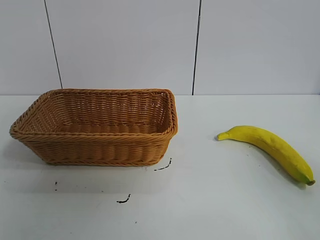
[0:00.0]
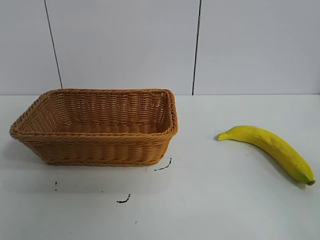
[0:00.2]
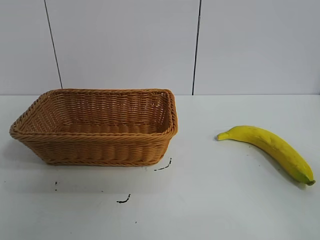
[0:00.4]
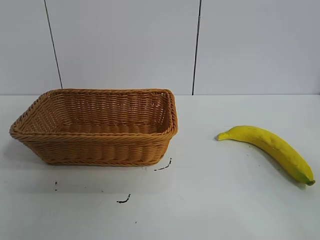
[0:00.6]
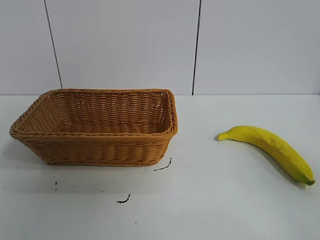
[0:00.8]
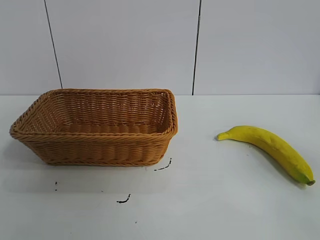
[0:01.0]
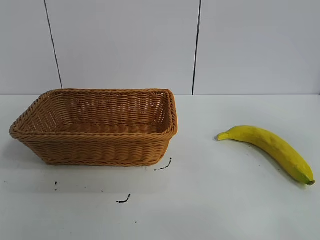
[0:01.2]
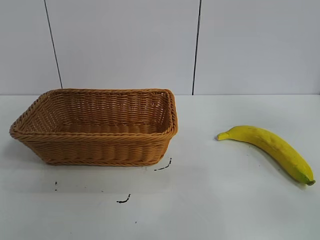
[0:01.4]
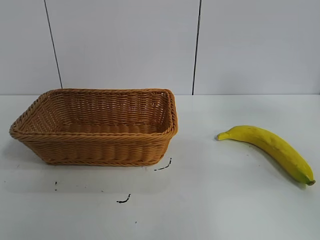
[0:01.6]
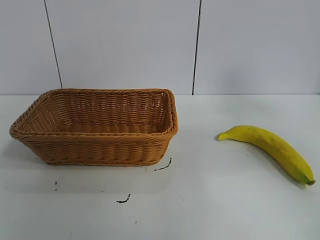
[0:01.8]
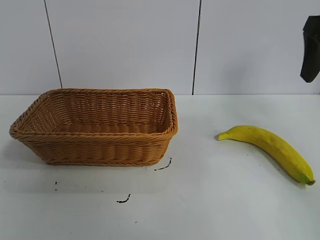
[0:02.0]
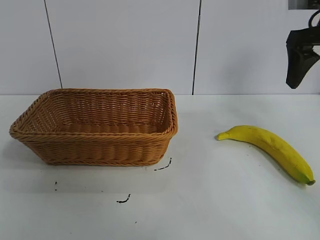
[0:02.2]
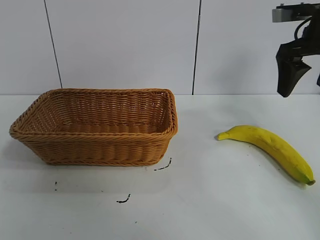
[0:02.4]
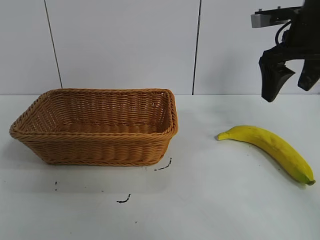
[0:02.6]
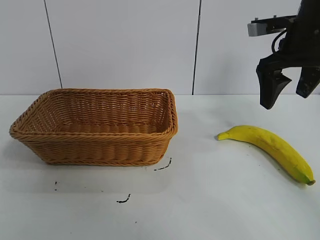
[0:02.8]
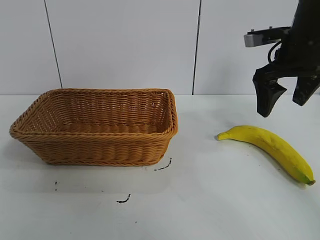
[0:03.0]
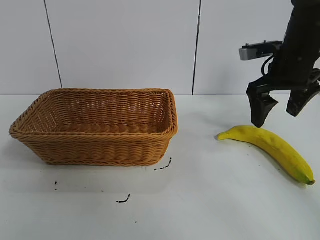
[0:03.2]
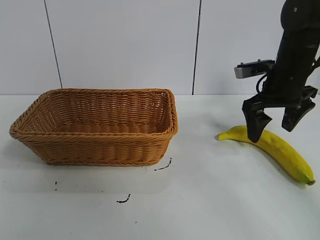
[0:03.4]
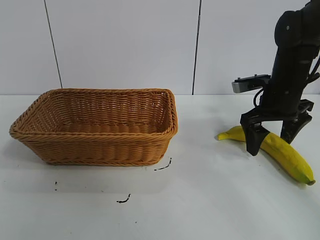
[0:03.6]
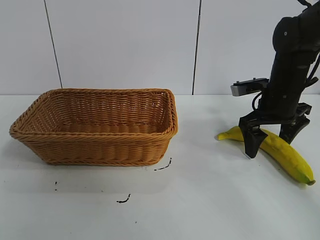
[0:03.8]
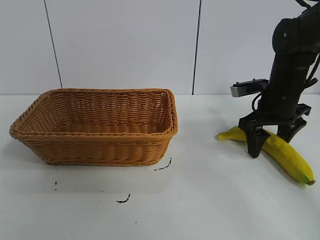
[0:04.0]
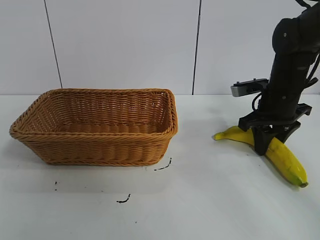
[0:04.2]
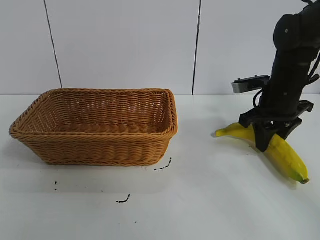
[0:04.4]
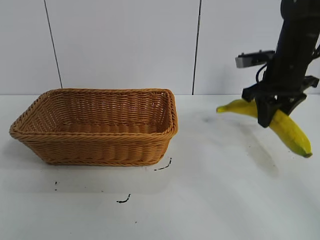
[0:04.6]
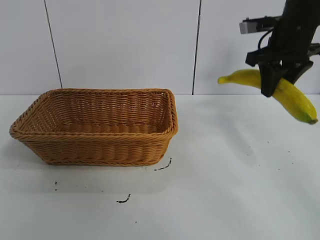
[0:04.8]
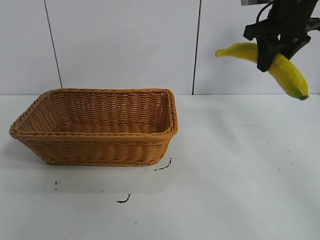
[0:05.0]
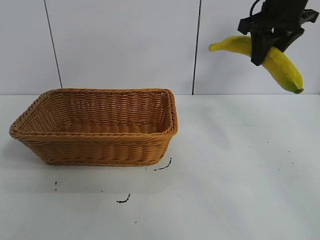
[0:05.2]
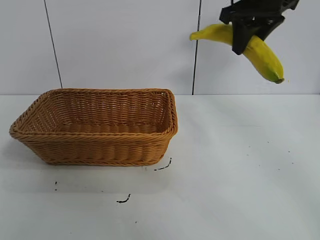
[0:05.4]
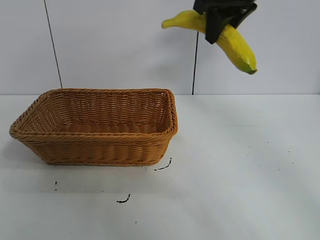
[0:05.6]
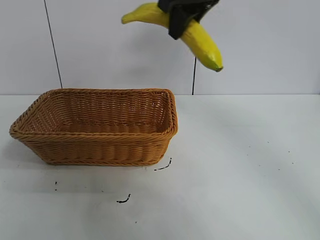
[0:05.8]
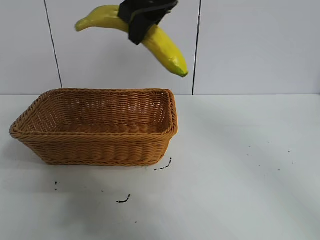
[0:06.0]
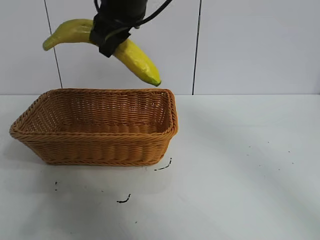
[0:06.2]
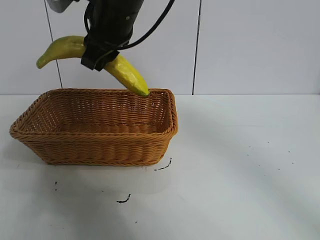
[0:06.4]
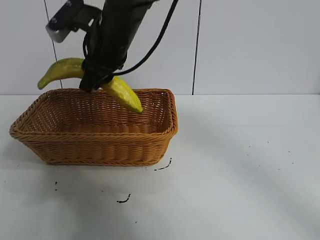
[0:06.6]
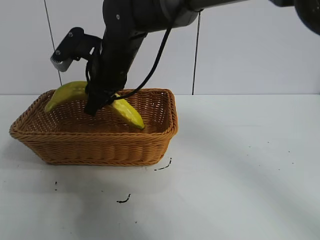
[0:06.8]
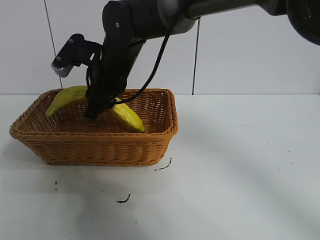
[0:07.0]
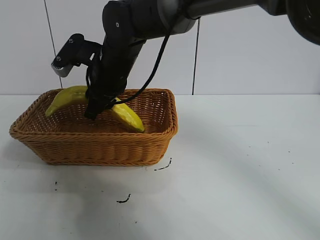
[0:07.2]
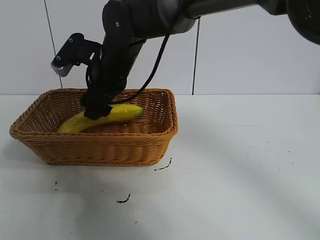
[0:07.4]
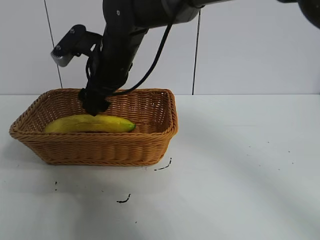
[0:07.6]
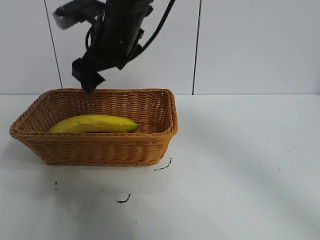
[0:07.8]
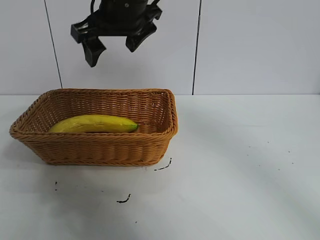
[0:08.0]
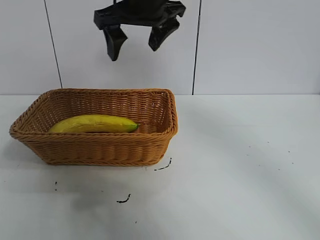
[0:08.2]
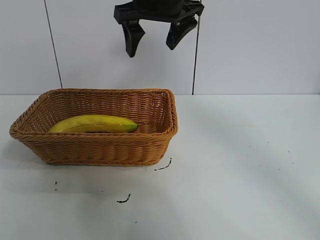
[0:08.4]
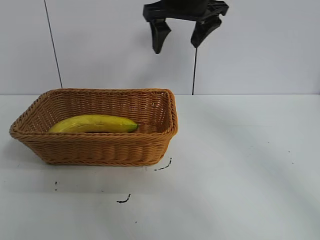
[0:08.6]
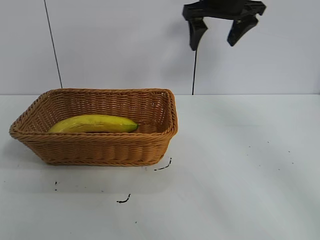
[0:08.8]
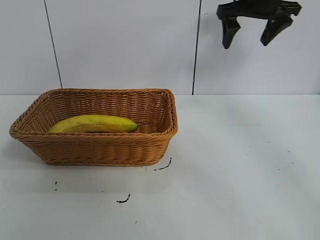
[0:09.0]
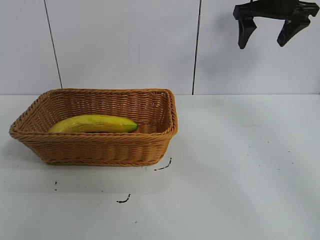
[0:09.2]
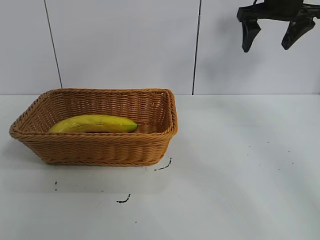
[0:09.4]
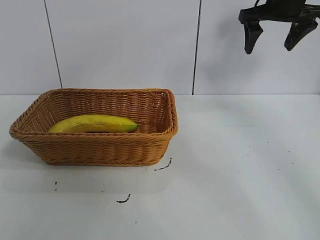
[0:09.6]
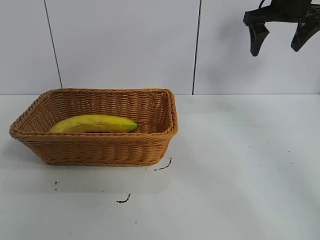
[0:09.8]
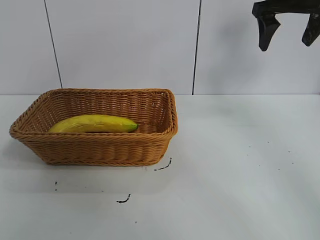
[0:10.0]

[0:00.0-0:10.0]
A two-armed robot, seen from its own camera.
Task of the whole recording: pick up the banana and put it into the basket.
Step, 0:00.8 to 0:04.0: Grasp the banana with right gripper.
Step, 0:04.4 to 0:07.6: Place the banana in the basket with right gripper.
